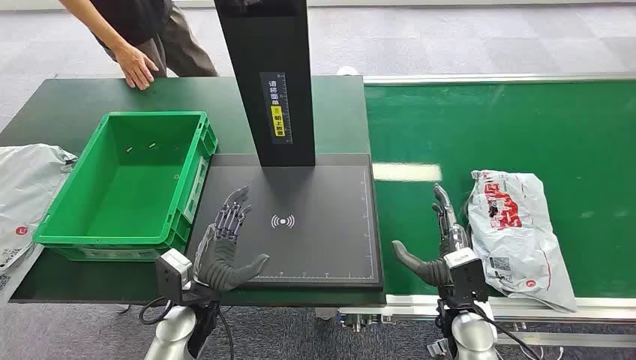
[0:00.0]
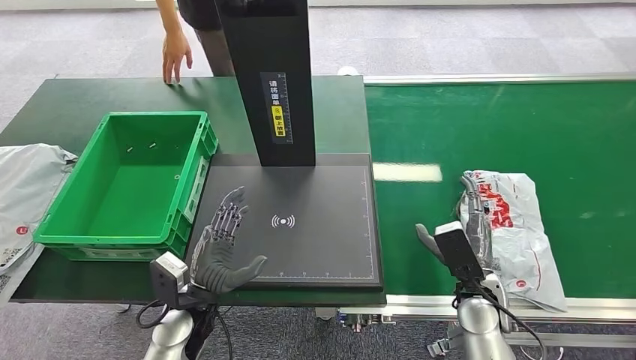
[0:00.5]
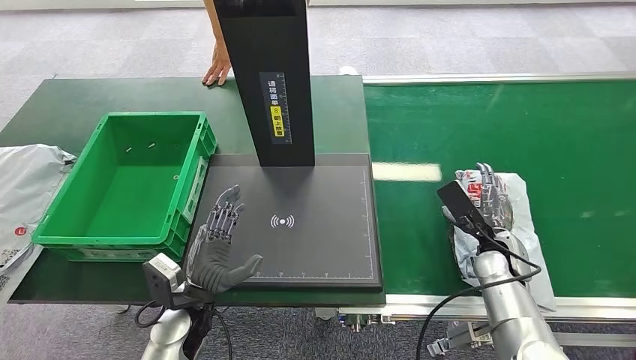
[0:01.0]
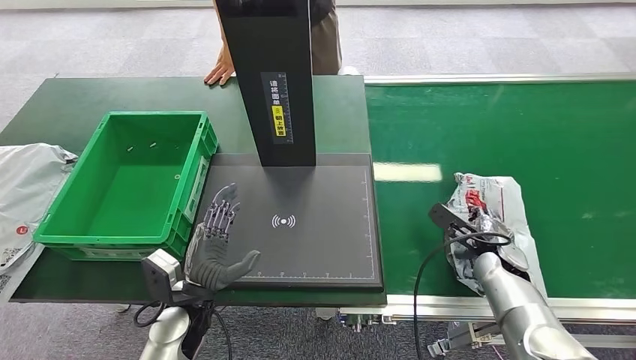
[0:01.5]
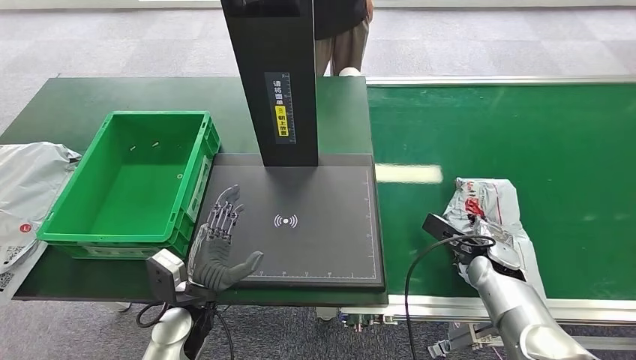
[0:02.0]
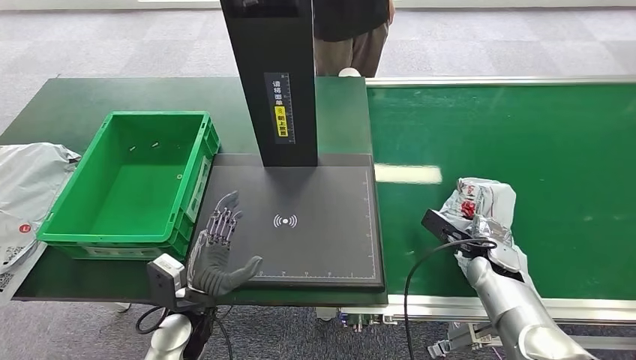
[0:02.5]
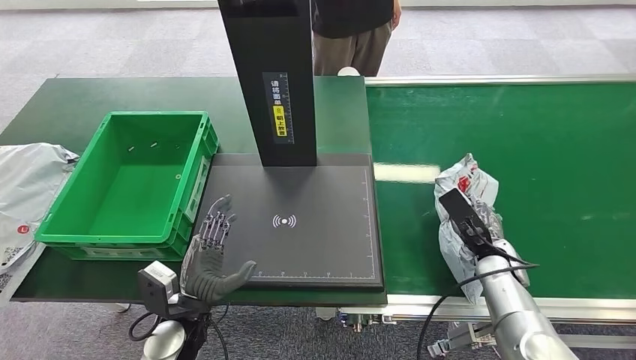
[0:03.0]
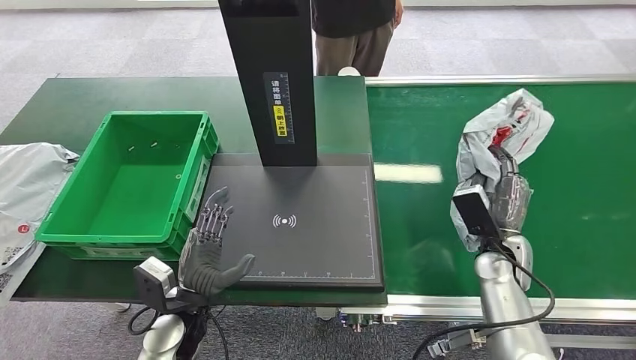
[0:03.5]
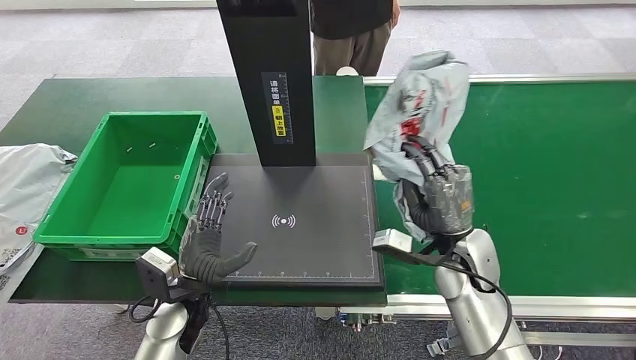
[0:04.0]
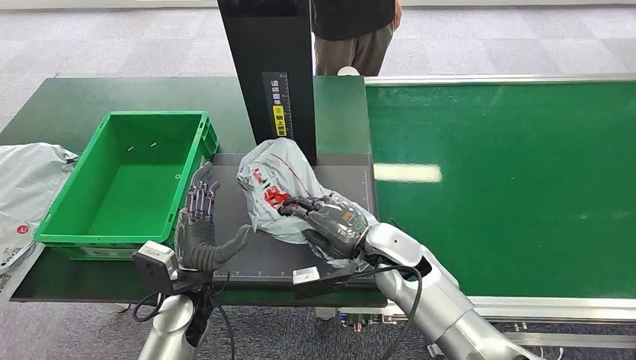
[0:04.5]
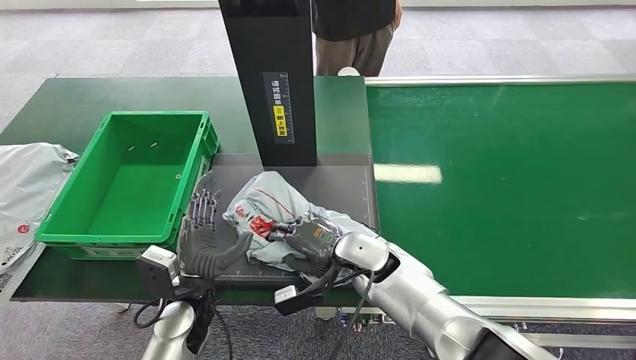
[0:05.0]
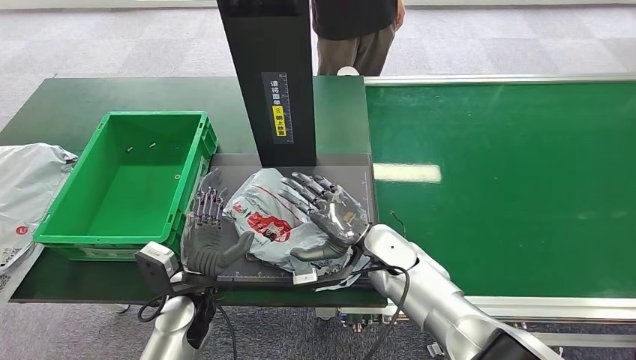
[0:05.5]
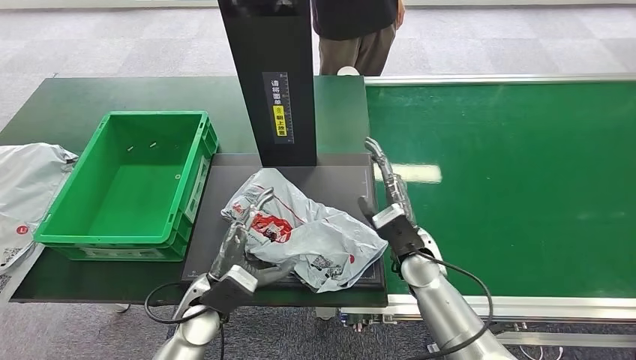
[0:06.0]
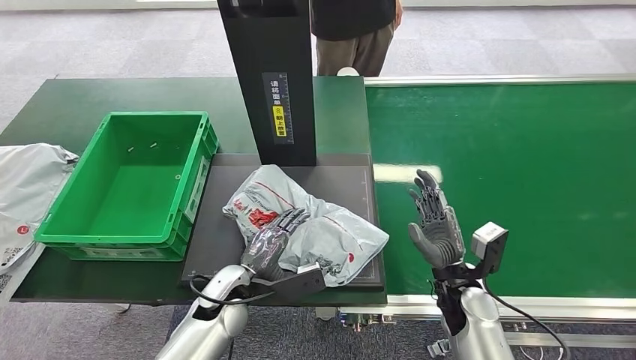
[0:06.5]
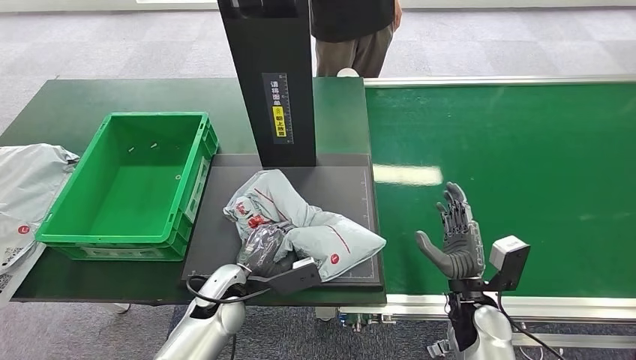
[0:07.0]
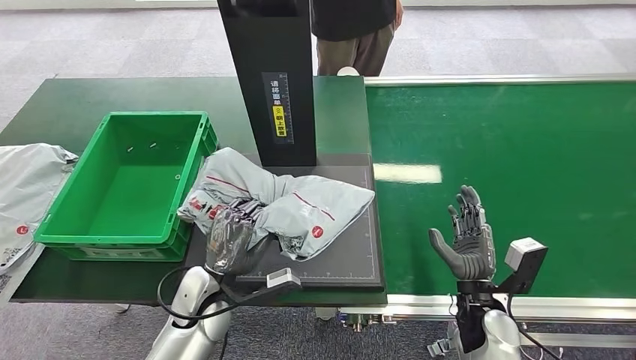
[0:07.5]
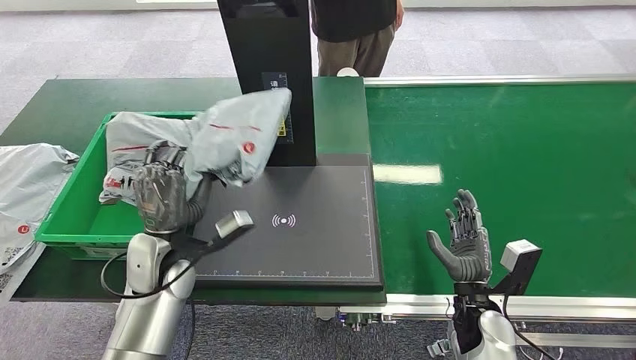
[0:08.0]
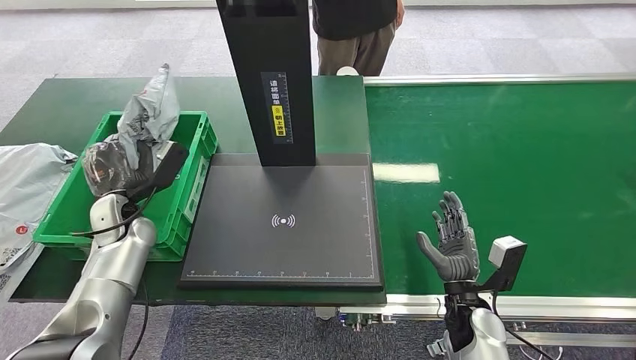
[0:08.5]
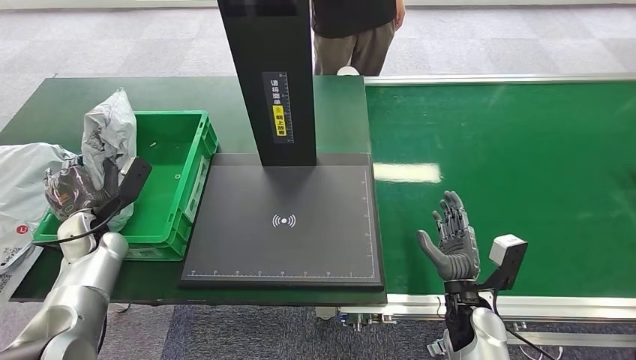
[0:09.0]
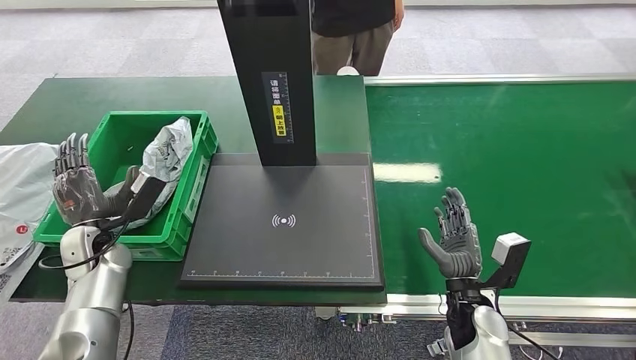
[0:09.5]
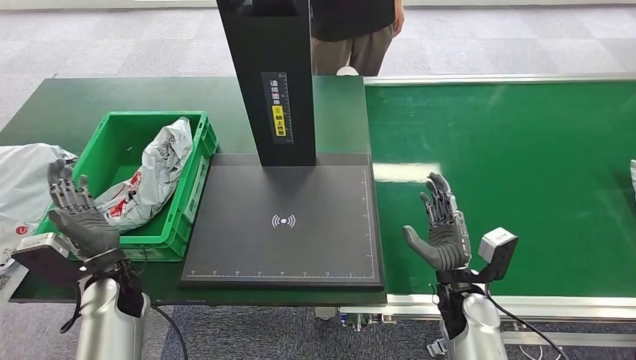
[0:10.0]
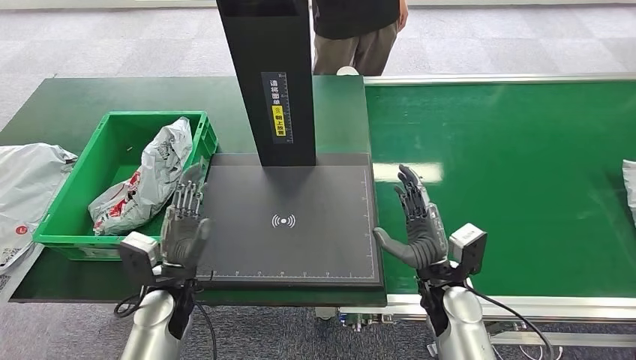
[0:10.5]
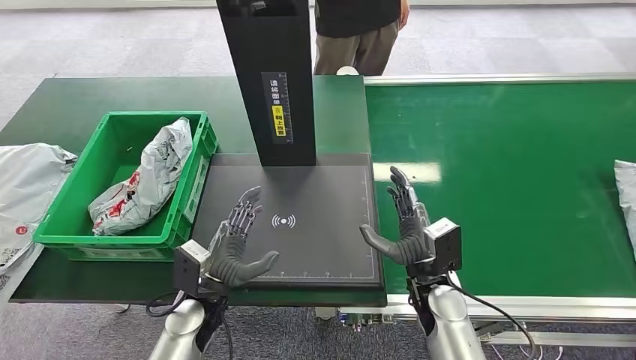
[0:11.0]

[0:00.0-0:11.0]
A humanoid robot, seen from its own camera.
Step, 0:00.0 to 0:03.0: Pick up the package from the conveyor belt.
Step, 0:03.5 to 0:05.5: Place the package onto the inbound machine.
Step, 0:06.0 to 0:07.5: Pick up the package from the inbound machine.
Step, 0:08.0 to 0:10.5: Place the package into the parcel locker.
0:02.0 to 0:03.5: The right hand changes place by approximately 5 cm.
0:03.5 to 0:05.5: The right hand shifts some 15 cm to the left.
0:05.5 to 0:07.5: The right hand moves to the right and backward, approximately 15 cm.
0:09.0 to 0:11.0: The right hand moves to the left, roughly 5 cm. Meanwhile the left hand moves to the right and backward, approximately 25 cm.
